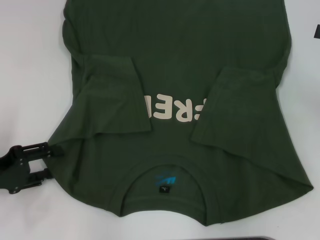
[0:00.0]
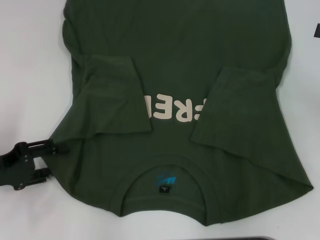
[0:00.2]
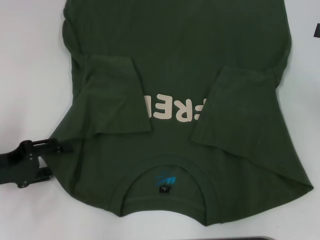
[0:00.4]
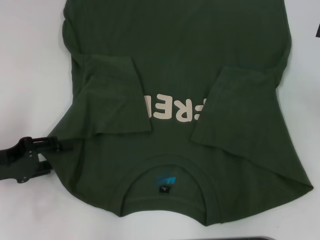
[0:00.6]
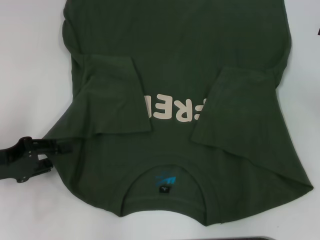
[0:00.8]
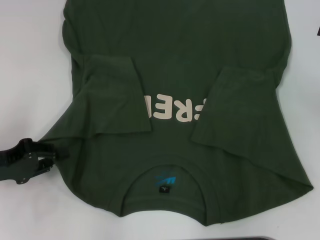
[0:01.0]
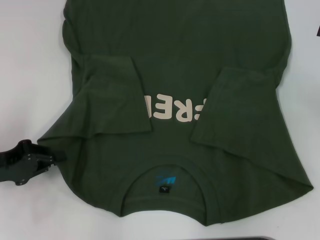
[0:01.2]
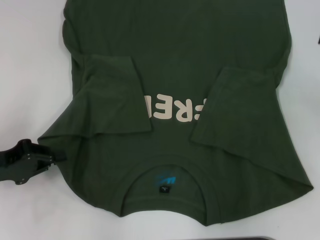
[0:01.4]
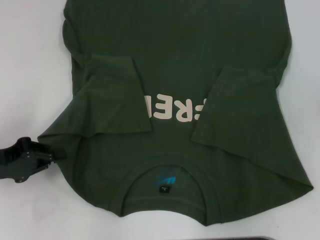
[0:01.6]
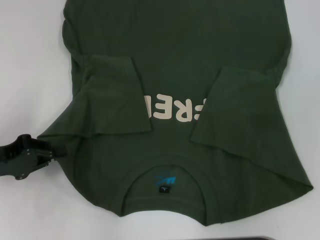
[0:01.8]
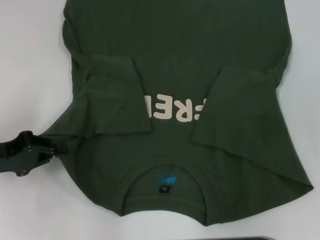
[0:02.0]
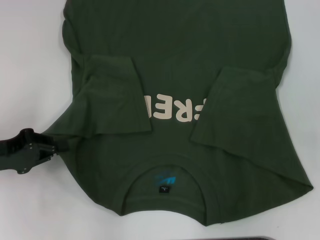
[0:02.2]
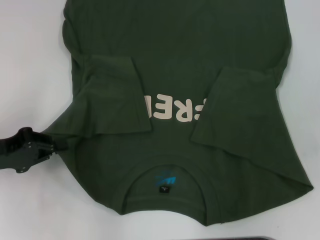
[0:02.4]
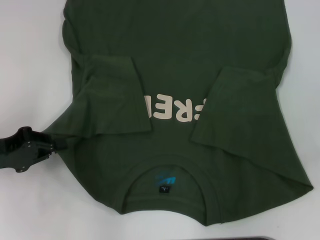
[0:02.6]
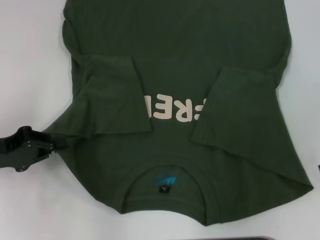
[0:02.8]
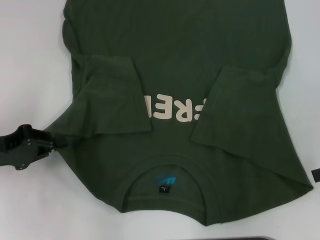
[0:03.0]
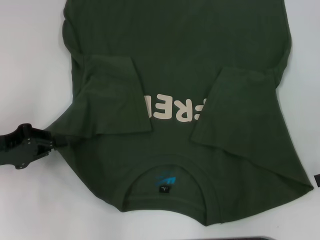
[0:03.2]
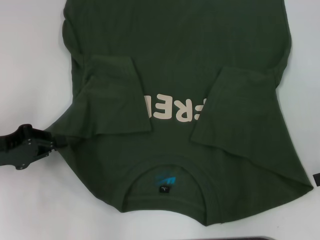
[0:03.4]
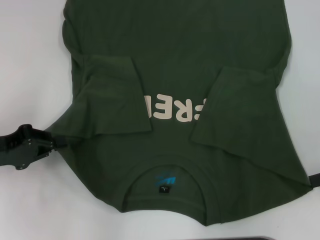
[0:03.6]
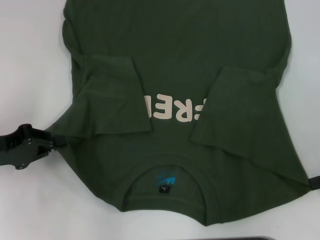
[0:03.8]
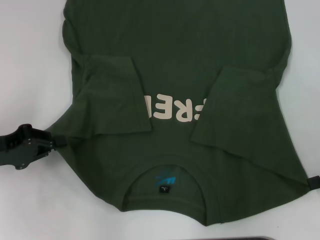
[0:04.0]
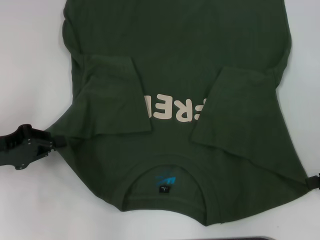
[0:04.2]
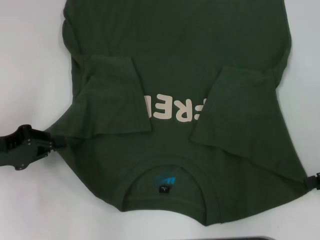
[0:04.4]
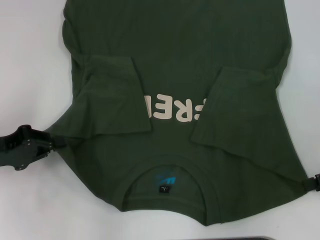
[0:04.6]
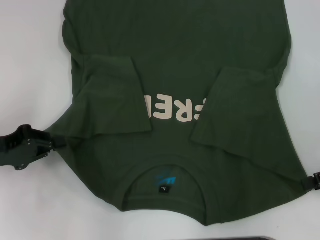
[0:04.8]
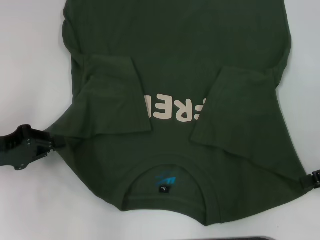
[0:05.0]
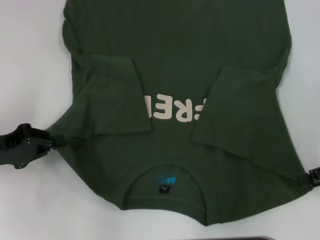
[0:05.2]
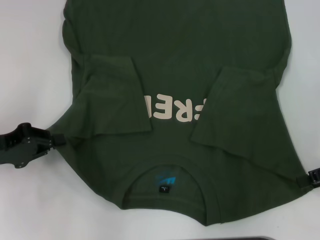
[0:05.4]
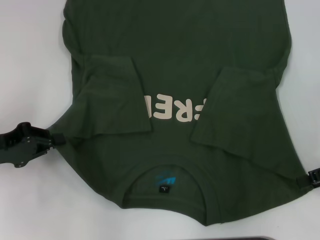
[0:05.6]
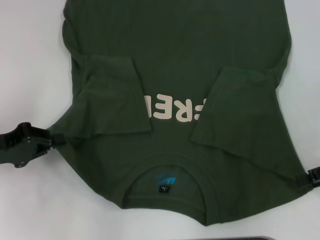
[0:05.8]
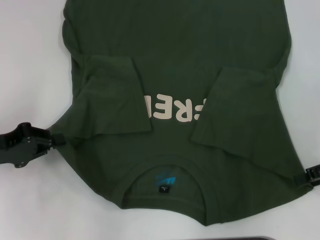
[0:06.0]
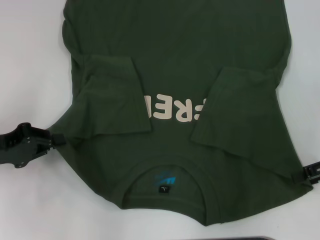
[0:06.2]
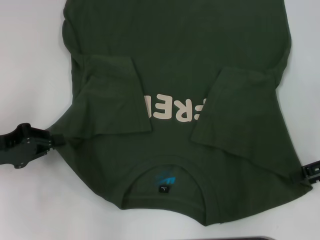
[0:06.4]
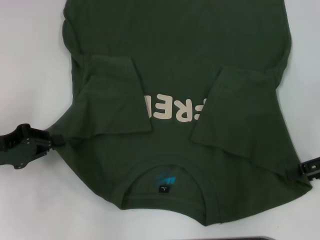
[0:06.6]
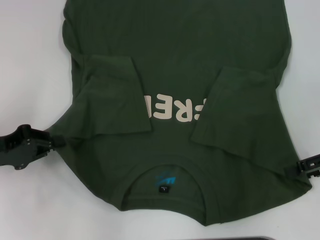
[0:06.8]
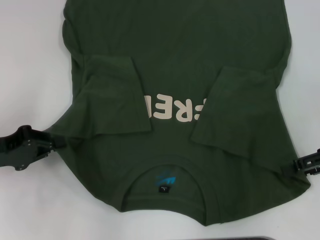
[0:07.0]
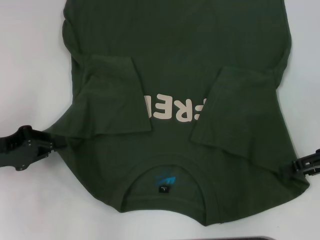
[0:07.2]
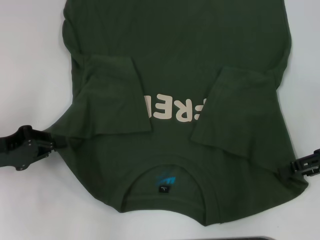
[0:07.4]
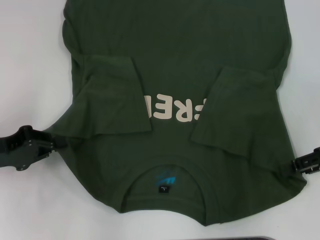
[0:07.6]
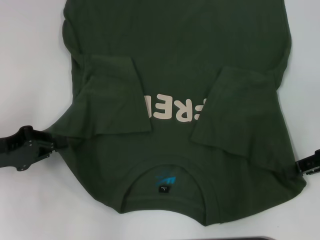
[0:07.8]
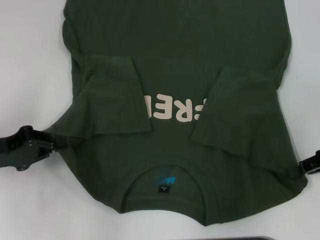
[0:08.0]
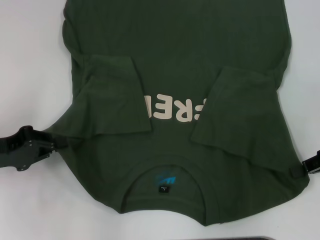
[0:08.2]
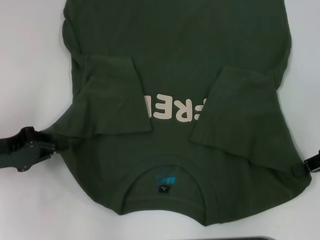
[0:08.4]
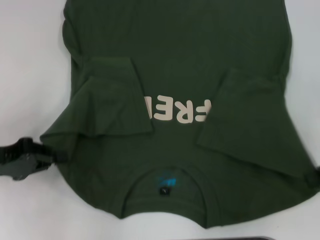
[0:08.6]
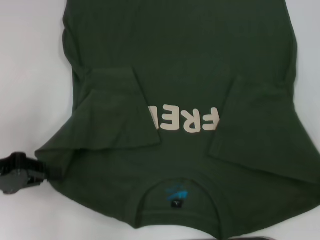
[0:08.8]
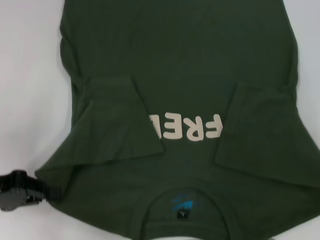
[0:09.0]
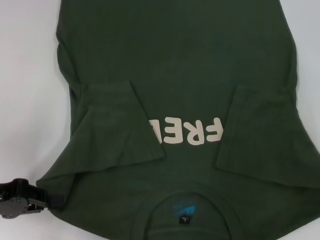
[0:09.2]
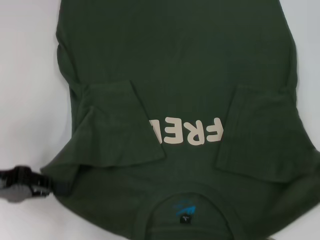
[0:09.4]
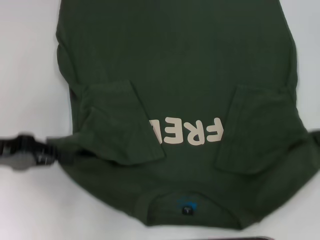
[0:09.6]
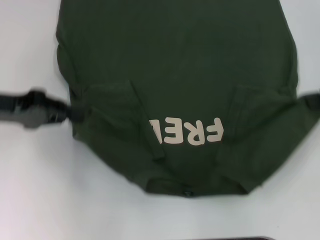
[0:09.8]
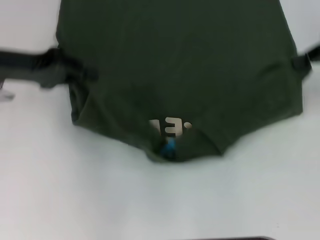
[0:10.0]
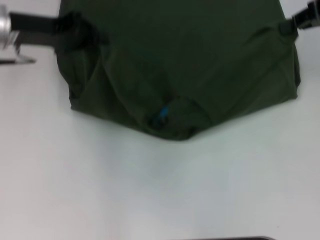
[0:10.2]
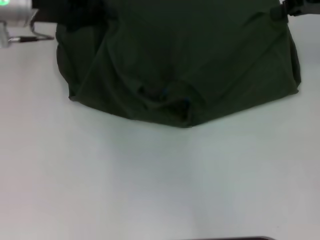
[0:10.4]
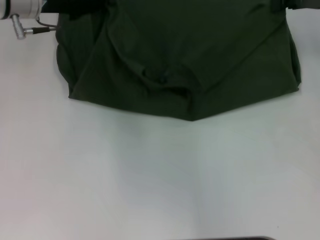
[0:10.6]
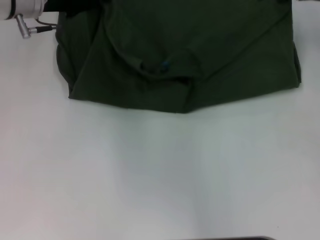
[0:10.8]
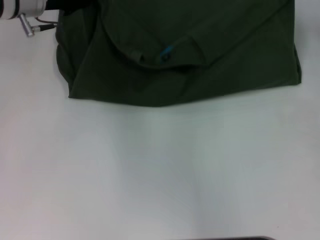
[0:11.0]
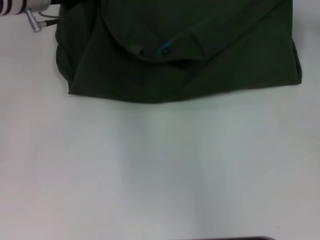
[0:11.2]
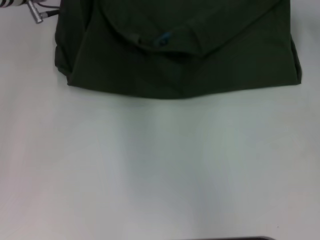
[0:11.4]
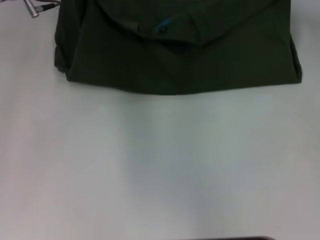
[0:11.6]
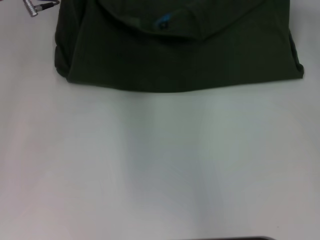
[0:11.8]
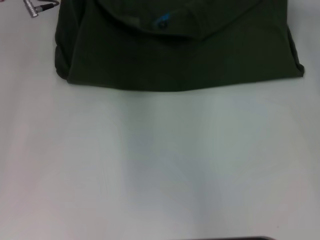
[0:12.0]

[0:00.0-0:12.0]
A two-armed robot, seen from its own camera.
Step, 0:01.4 to 0:08.2: Grab the bottom right corner with your right hand.
0:00.0 to 0:01.6: The left gripper closes.
0:04.4 to 0:07.6: The grippers move only a little.
0:07.6 to 0:09.0: The right gripper closes.
0:09.0 to 0:10.4: The right gripper moves forward, upward and to the left, some 20 cm. The left gripper is displaced forward, to the right and upward by roughly 25 cm.
0:10.4 to 0:12.0: The left gripper ends up approximately 5 cm from where it was. The right gripper heads forward, covering approximately 5 cm.

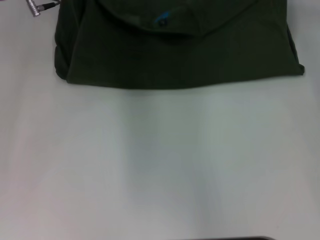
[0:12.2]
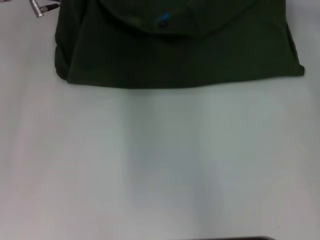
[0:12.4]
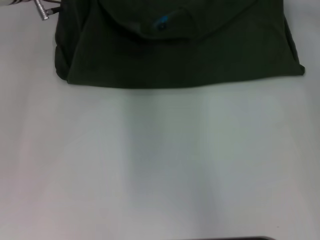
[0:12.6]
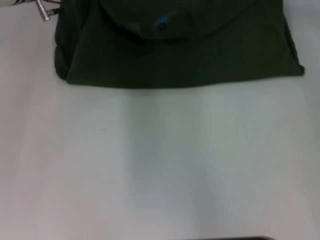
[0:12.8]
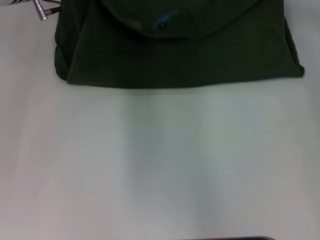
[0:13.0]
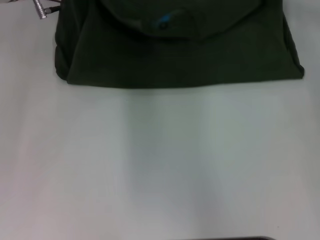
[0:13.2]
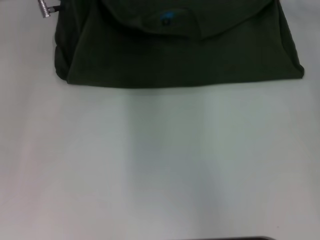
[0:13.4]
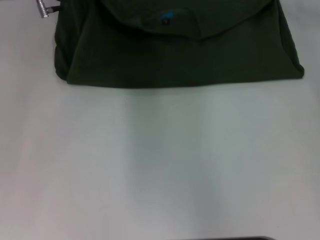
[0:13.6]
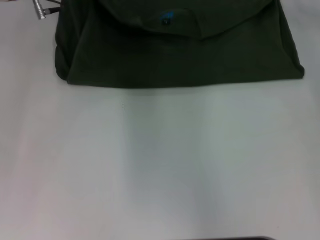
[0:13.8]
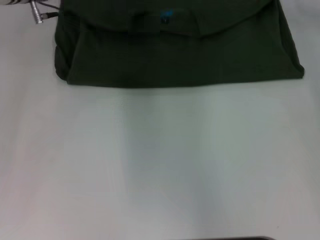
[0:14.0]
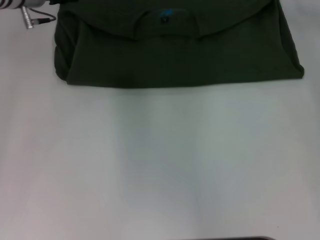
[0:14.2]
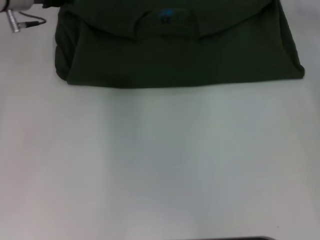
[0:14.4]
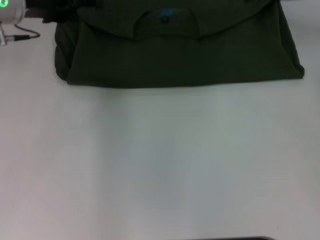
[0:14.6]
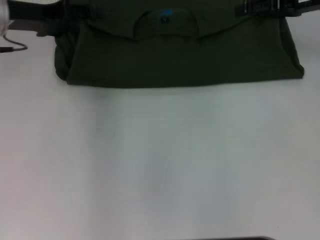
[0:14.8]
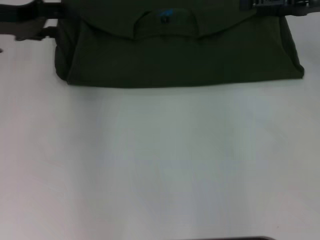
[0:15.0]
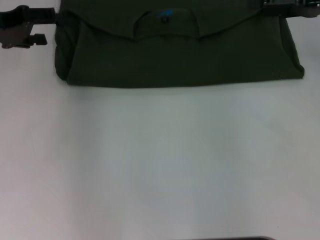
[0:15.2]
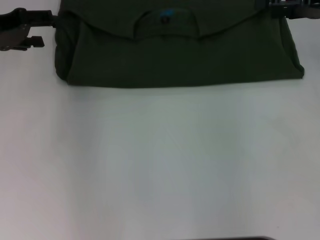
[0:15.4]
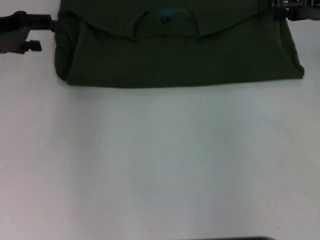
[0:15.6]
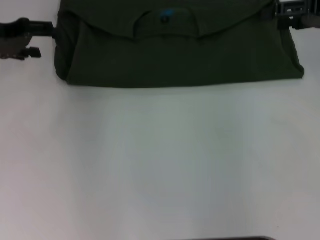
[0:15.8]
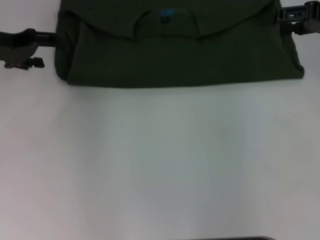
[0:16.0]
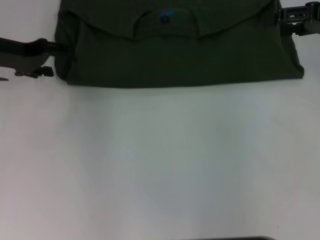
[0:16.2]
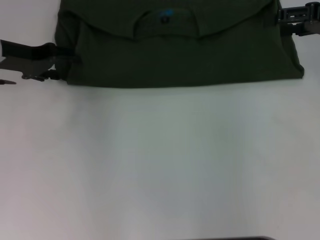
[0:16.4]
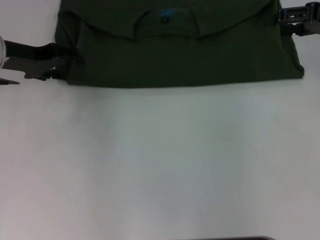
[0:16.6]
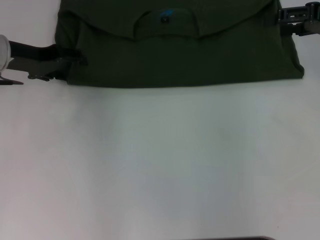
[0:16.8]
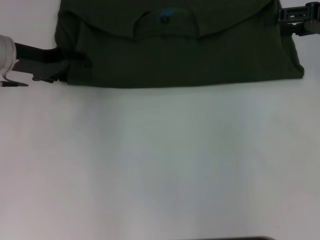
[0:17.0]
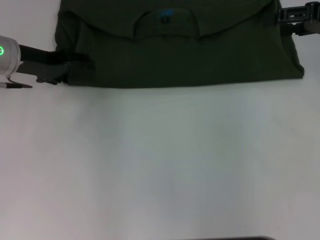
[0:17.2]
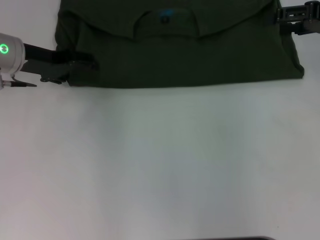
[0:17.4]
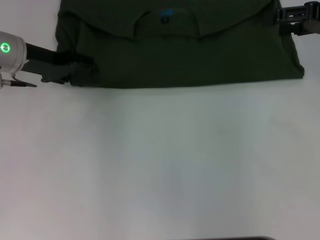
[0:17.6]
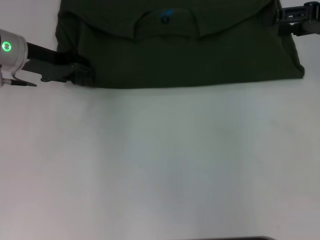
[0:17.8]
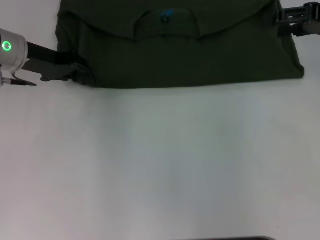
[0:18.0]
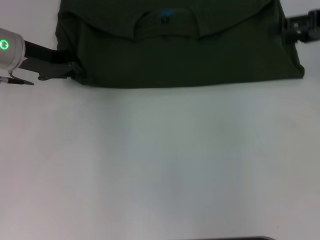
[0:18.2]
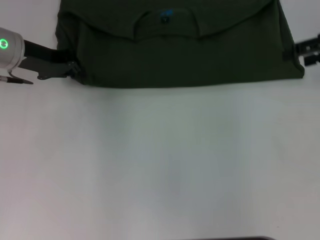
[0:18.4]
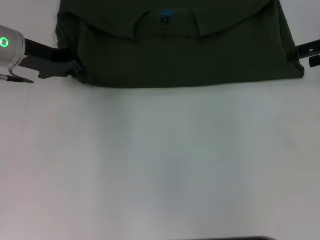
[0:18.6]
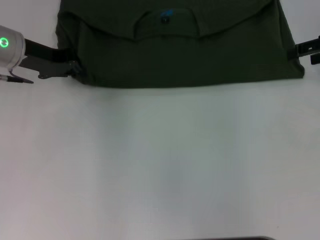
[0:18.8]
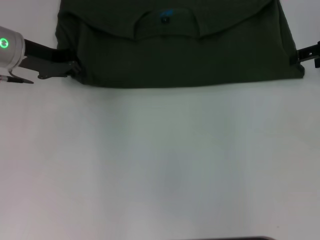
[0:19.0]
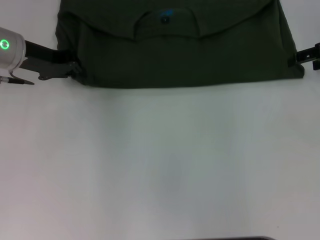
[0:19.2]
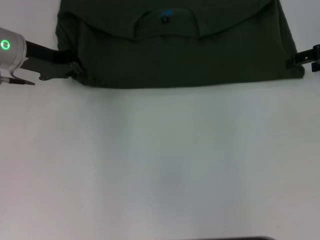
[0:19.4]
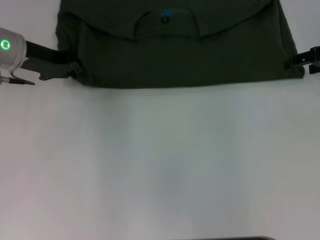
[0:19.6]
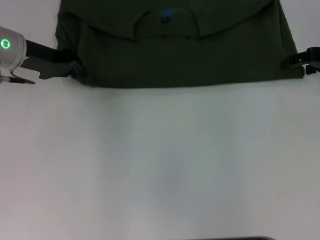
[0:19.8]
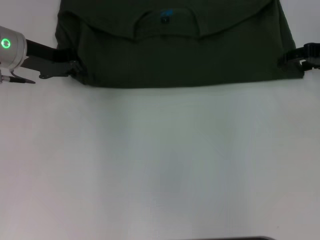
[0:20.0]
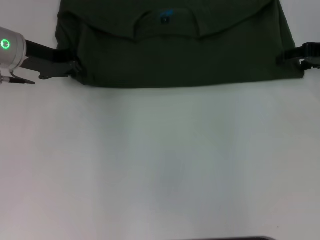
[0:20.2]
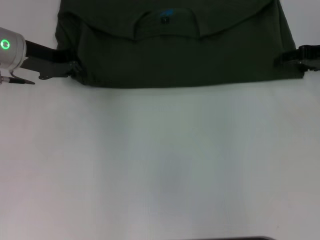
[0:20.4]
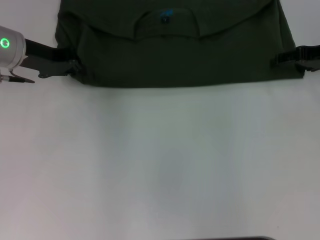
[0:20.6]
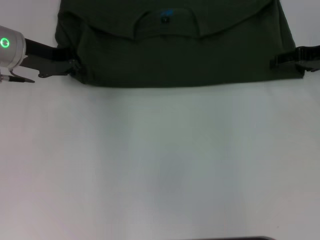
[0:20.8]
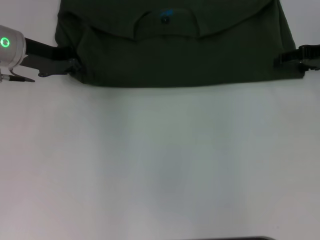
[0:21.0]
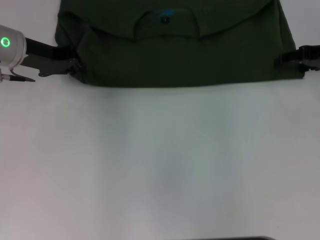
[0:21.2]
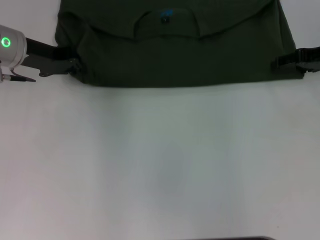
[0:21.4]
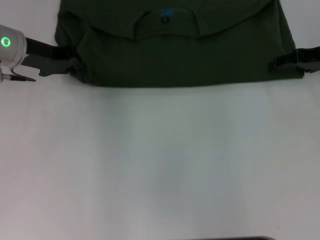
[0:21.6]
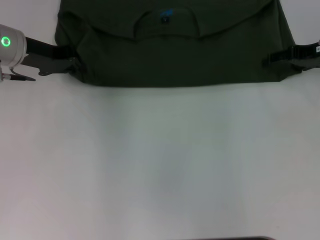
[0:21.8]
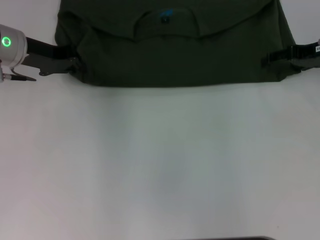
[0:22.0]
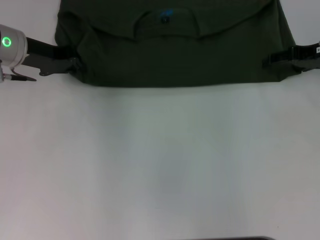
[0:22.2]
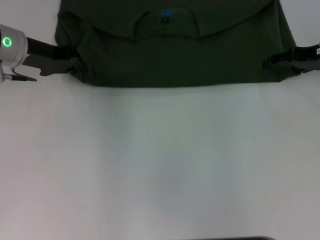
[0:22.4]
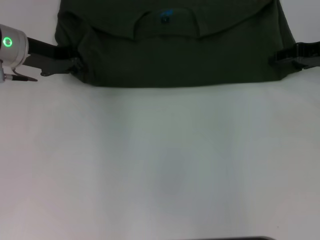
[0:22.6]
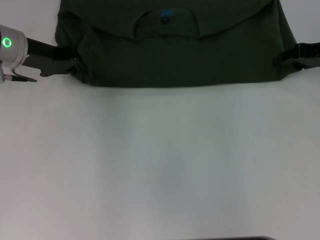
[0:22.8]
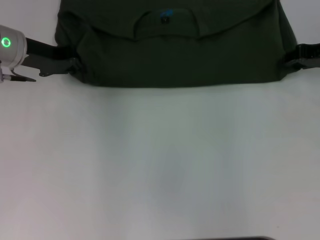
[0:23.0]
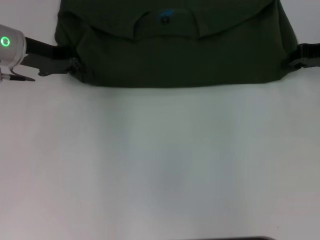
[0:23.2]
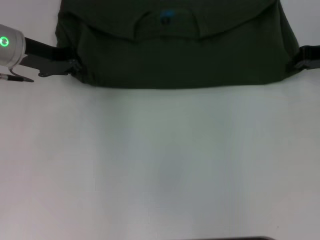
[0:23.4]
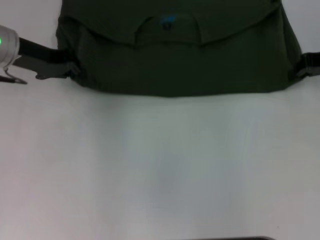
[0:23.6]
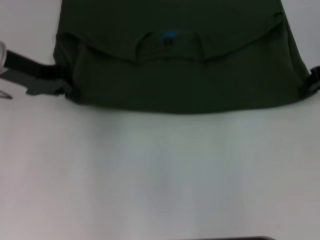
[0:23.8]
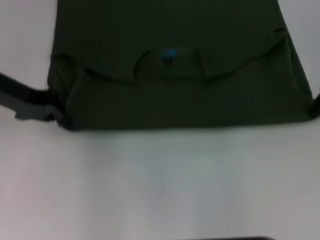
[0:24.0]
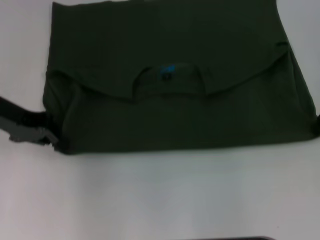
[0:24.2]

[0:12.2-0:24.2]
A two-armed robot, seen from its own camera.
0:12.2 to 0:13.8: The left gripper opens its fingers; the right gripper opens.
0:13.8 to 0:15.2: The left gripper travels to the left and backward by roughly 15 cm. The right gripper shifts approximately 10 cm backward.
0:15.2 to 0:16.6: The left gripper changes place by approximately 5 cm.
0:16.6 to 0:18.2: The left gripper closes its fingers.
0:18.2 to 0:19.8: The right gripper goes approximately 5 cm downward.
0:19.8 to 0:22.6: The grippers stay close to where they were, moving slightly.
0:22.6 to 0:24.2: The left gripper is displaced backward by approximately 5 cm, while the right gripper closes its fingers.
